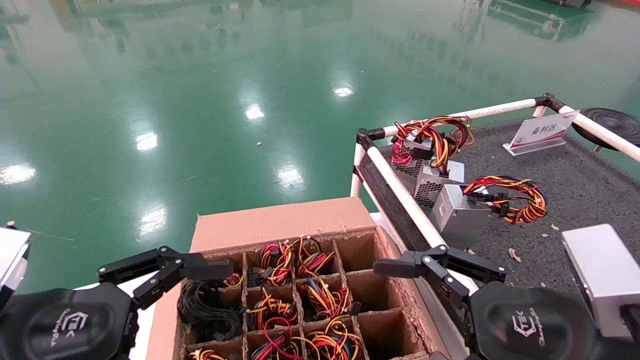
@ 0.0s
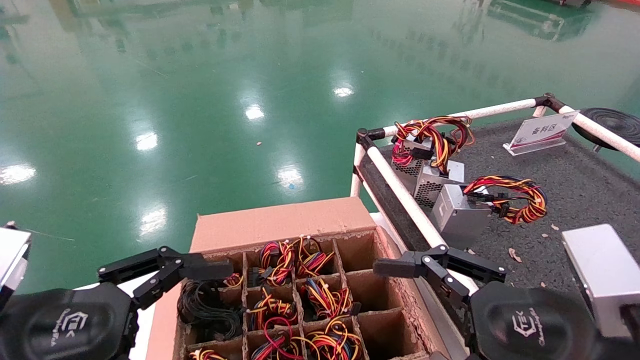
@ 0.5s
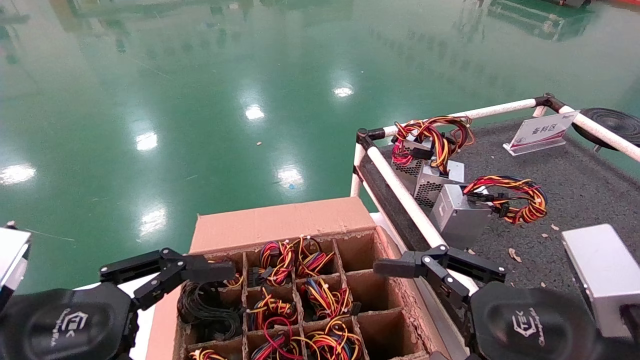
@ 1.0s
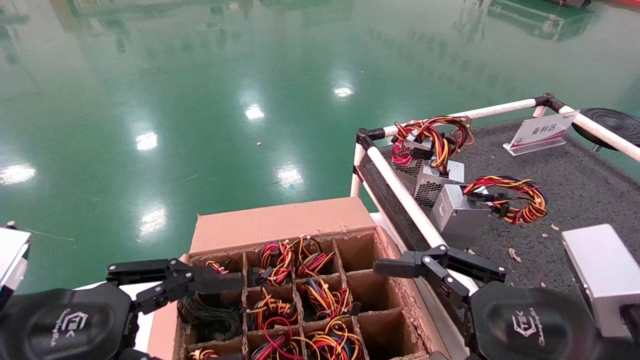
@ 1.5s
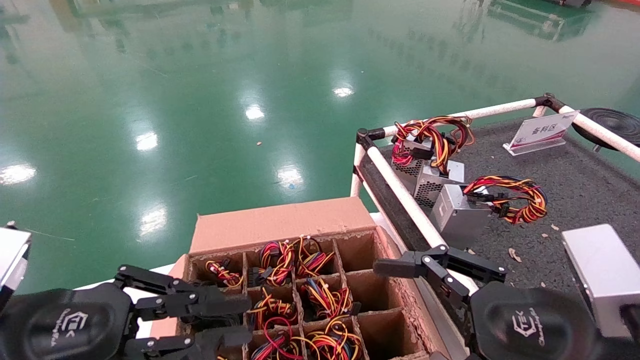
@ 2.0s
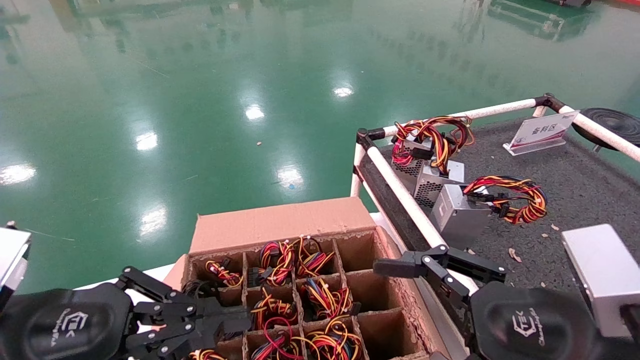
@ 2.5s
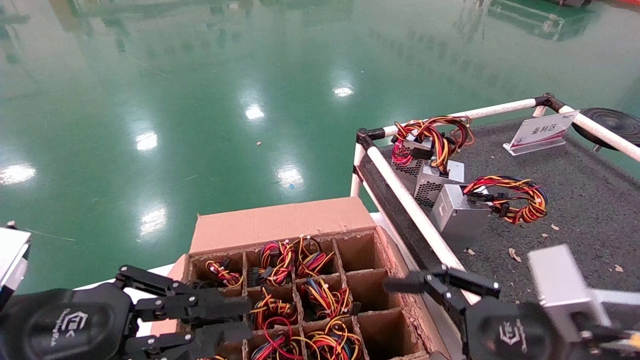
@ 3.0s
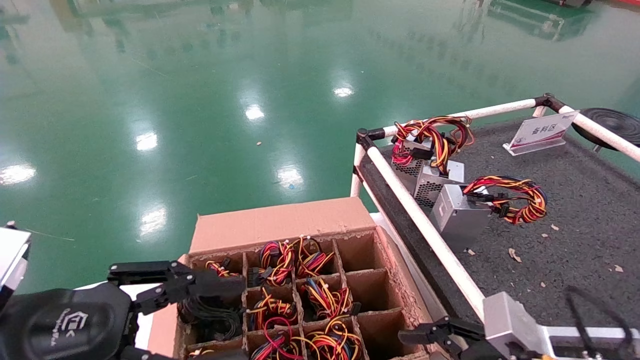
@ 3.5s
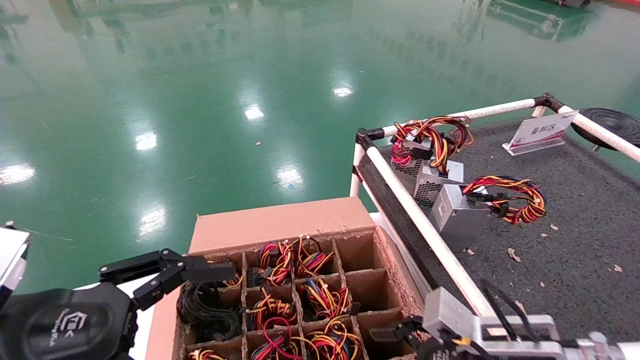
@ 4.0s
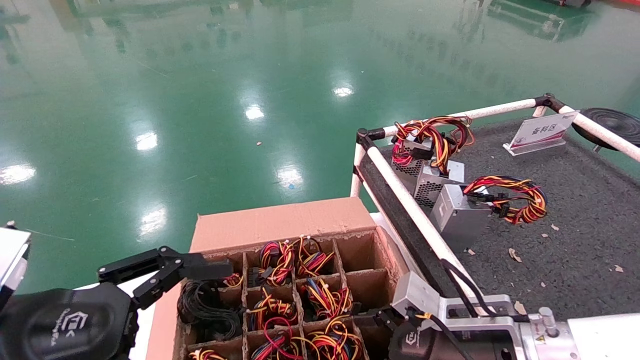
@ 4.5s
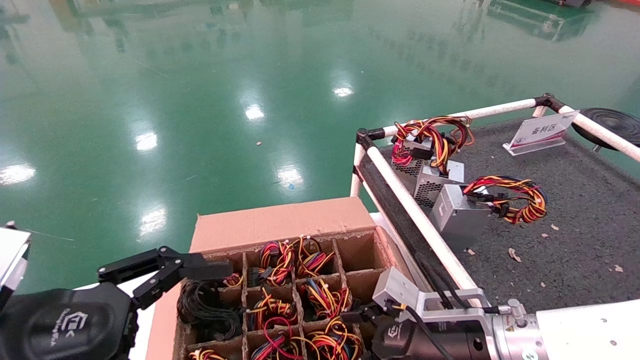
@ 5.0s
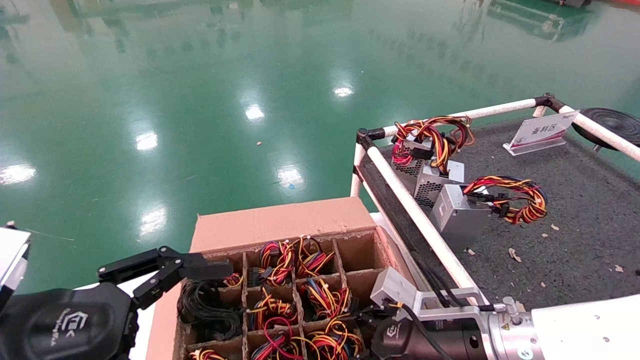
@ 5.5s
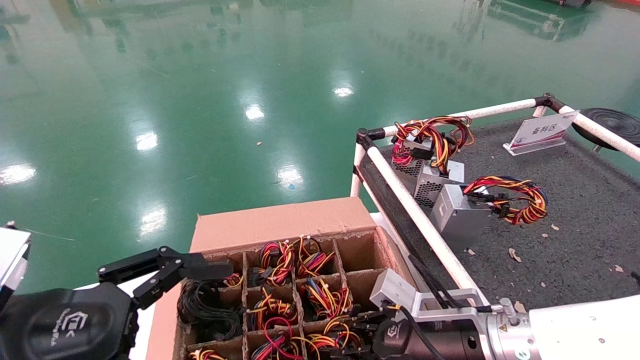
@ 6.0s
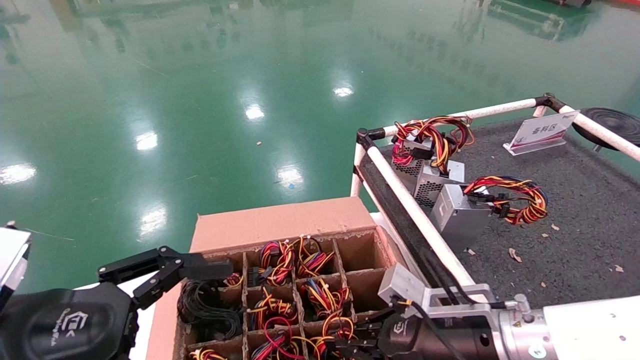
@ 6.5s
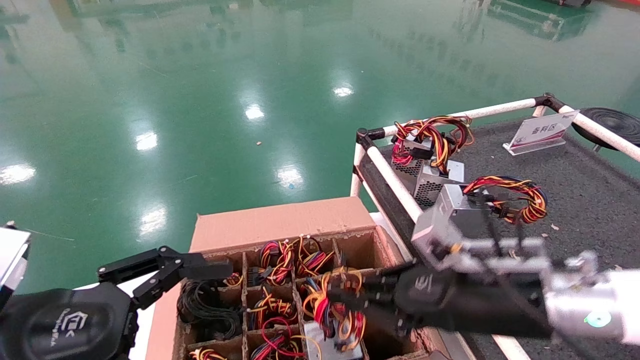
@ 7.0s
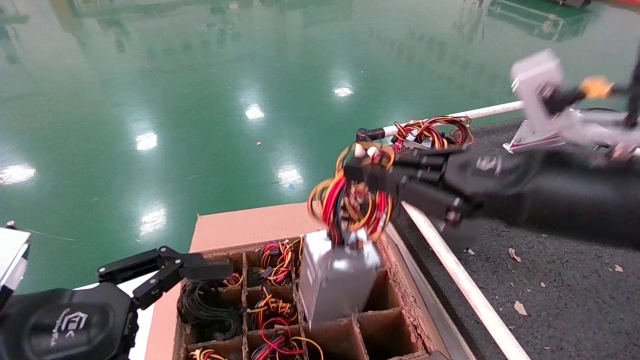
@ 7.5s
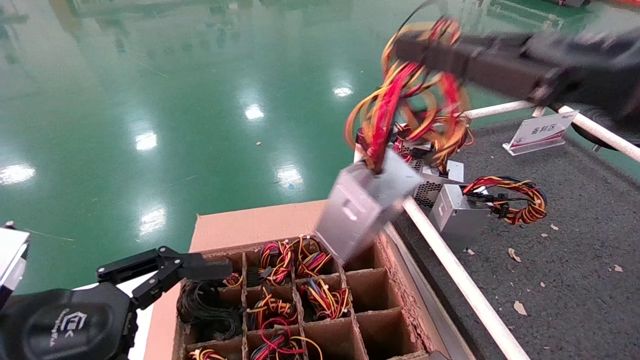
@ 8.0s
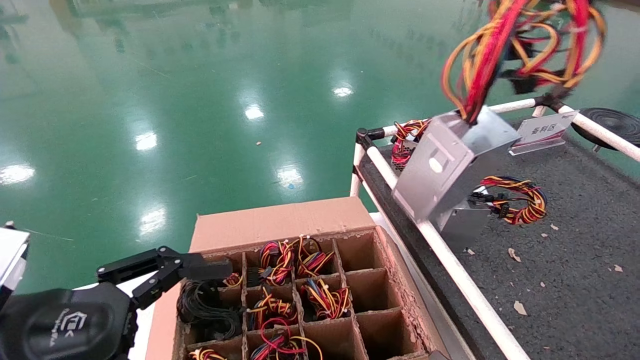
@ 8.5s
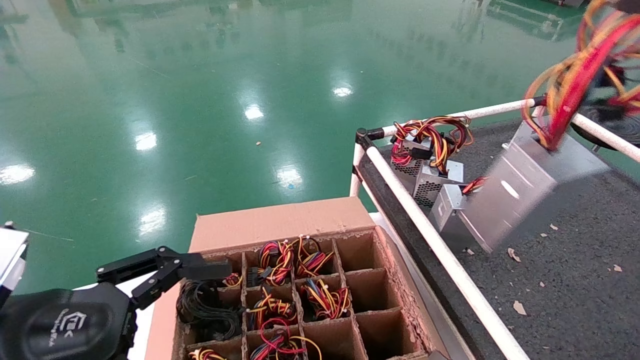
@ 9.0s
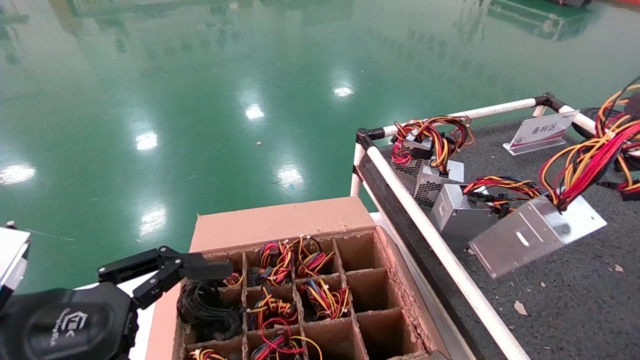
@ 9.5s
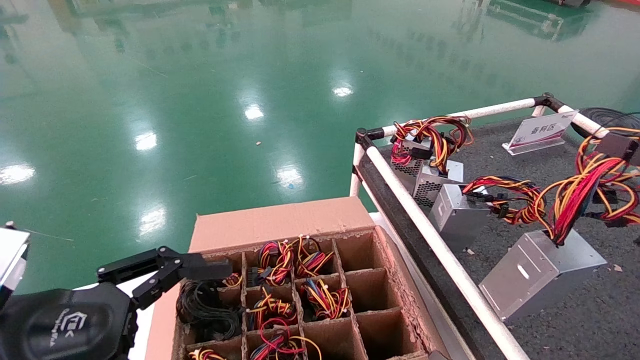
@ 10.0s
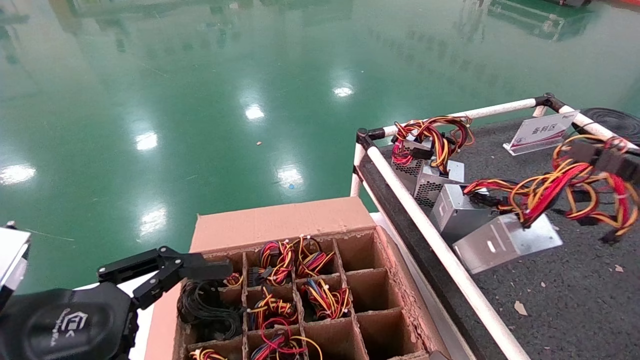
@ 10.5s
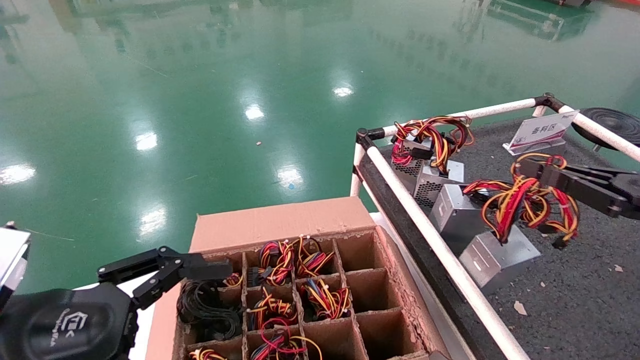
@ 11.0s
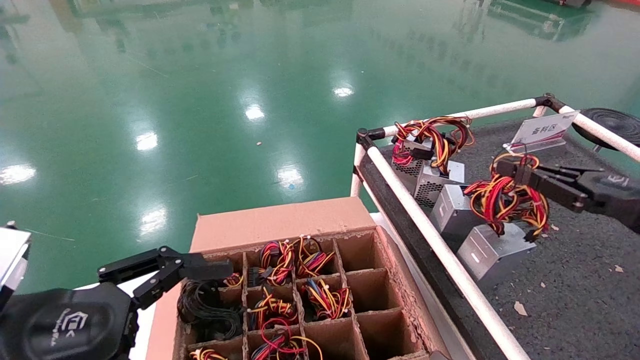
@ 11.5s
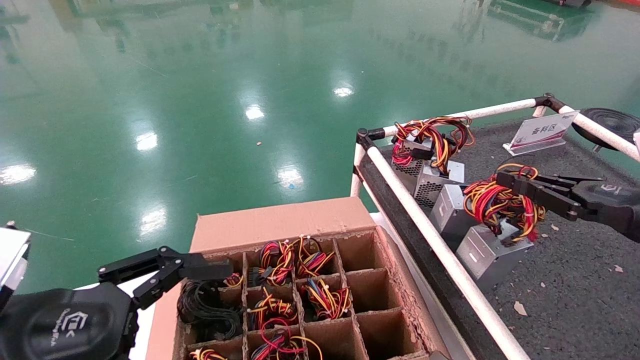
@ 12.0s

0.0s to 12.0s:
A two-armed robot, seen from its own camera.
Step, 3.5s to 6.0s: Grab and lift the power supply from the large box.
0.0s to 2.0s: The left gripper closes.
2.0s to 4.0s: The right gripper moves downward and forward, some 10 cm; the left gripper opens.
4.0s to 6.0s: The right gripper travels forward by approximately 5 cm, and closes up.
6.0s to 8.0s: The right gripper heads upward and backward, covering some 30 cm, and closes up.
8.0s to 10.0s: The right gripper travels to the right and downward by some 20 cm.
10.0s to 12.0s: The right gripper travels forward by about 10 cm.

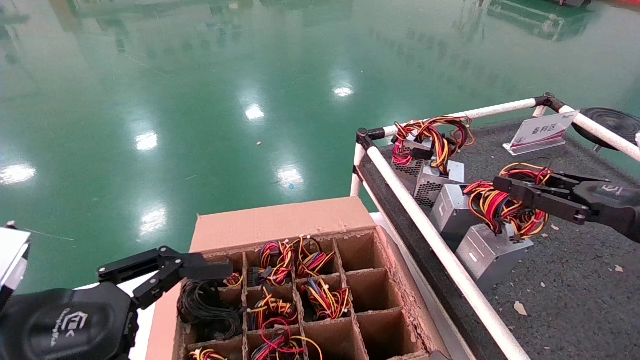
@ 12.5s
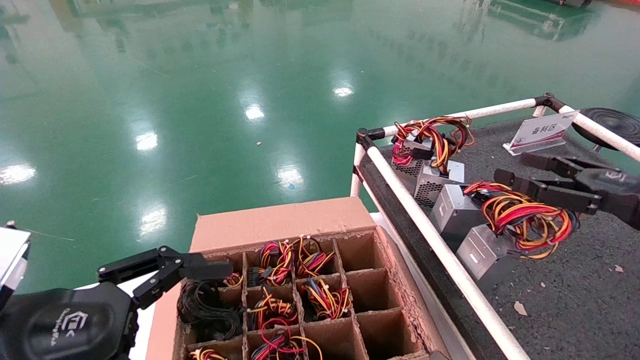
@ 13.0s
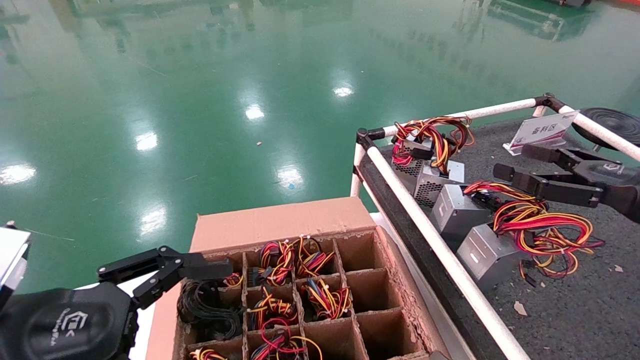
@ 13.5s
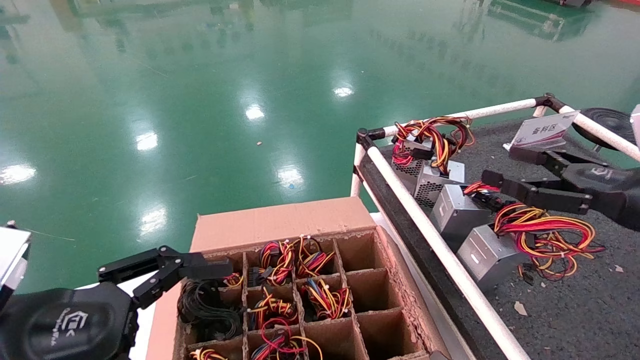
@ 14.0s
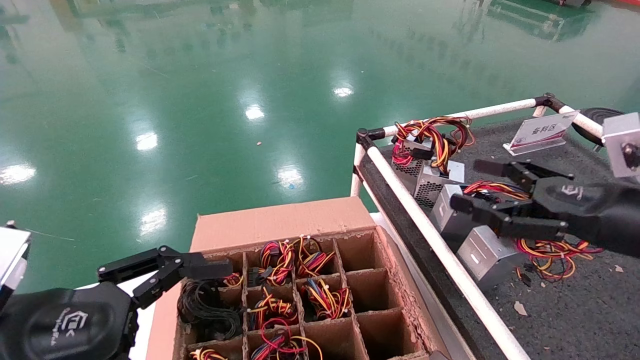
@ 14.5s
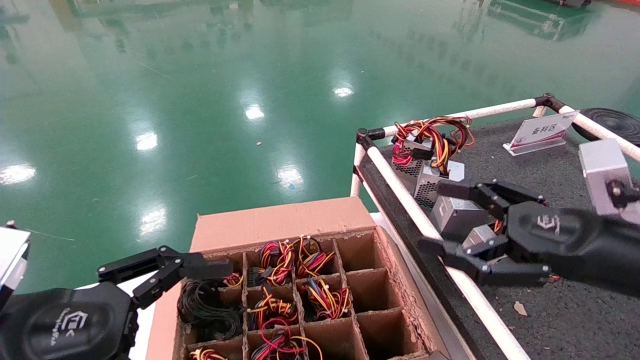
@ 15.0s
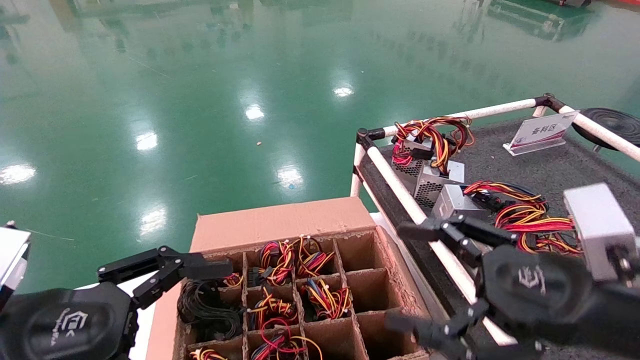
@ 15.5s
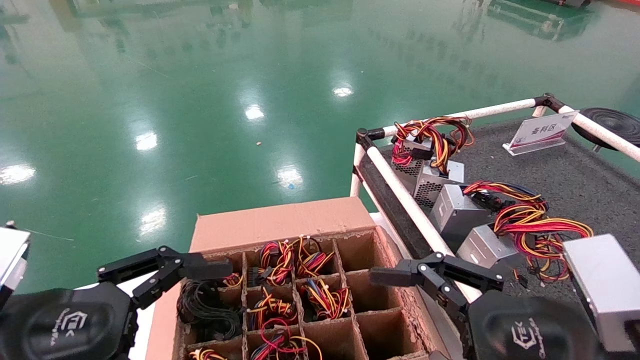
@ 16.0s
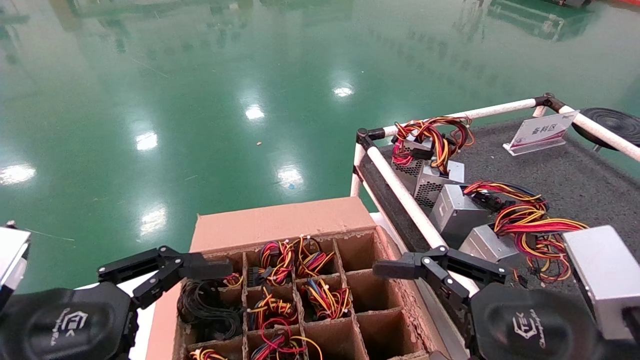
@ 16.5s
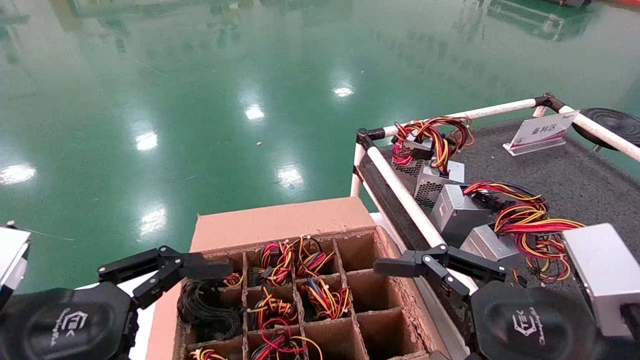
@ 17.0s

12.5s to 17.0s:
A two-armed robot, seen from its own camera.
12.5s to 14.5s: The right gripper goes roughly 5 cm to the left, and opens its fingers.
14.5s to 17.0s: The right gripper moves to the left, backward and downward, about 15 cm.
